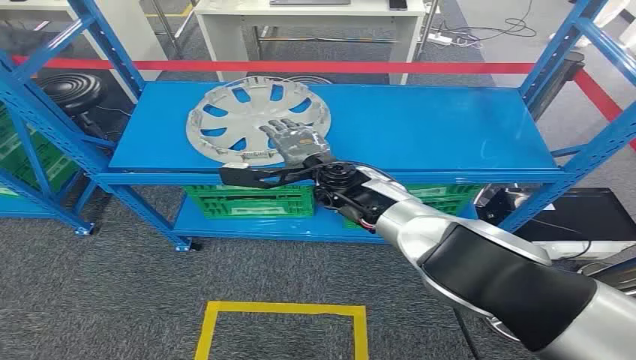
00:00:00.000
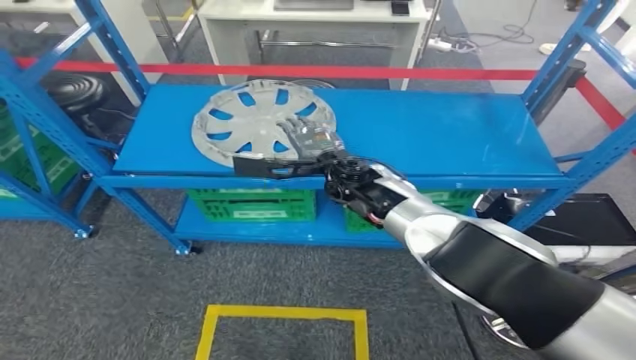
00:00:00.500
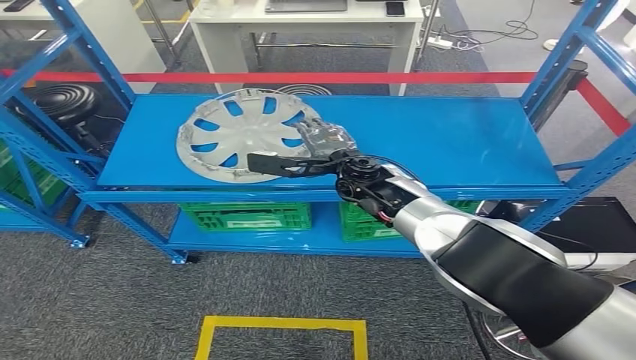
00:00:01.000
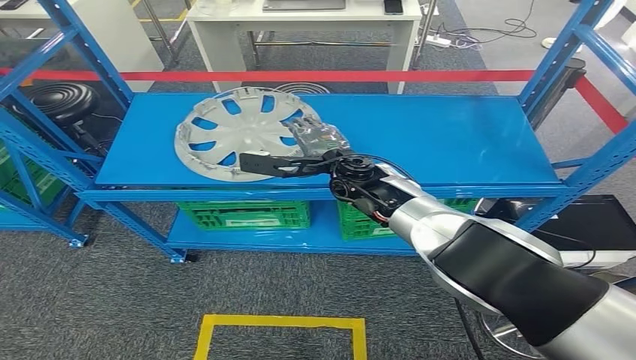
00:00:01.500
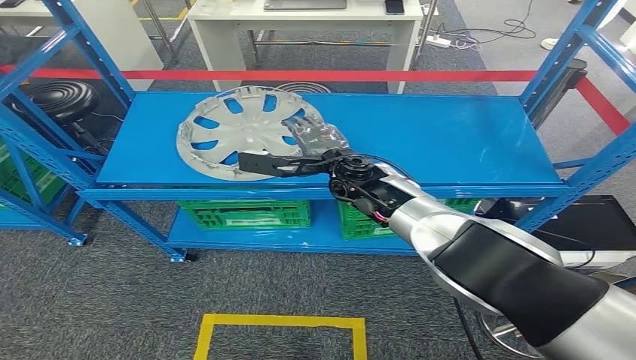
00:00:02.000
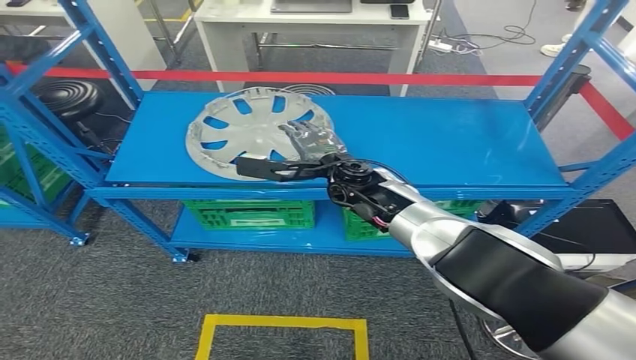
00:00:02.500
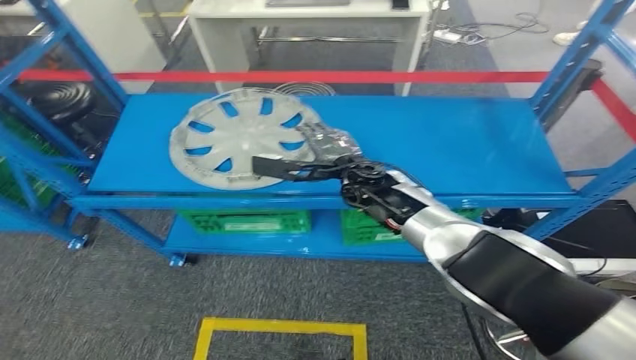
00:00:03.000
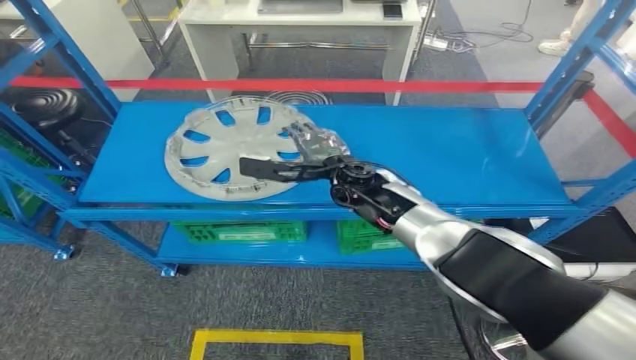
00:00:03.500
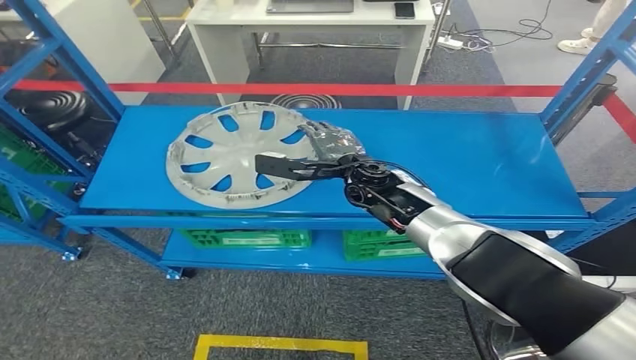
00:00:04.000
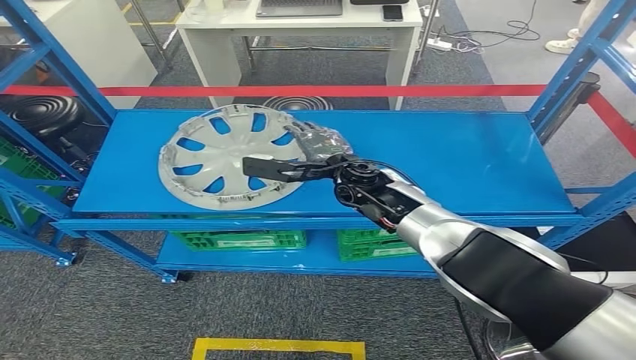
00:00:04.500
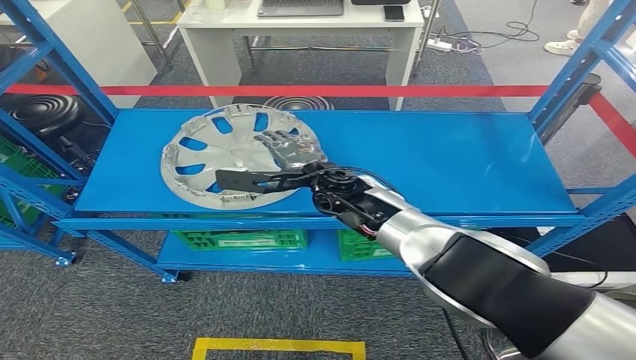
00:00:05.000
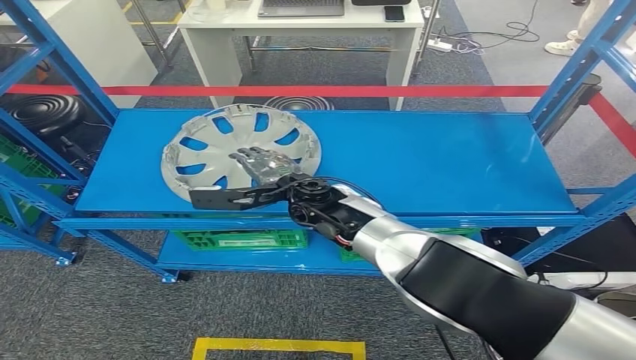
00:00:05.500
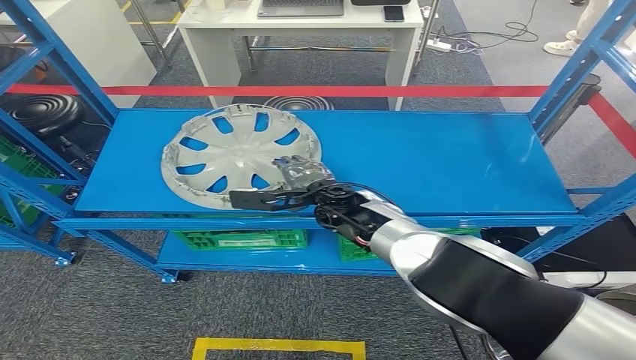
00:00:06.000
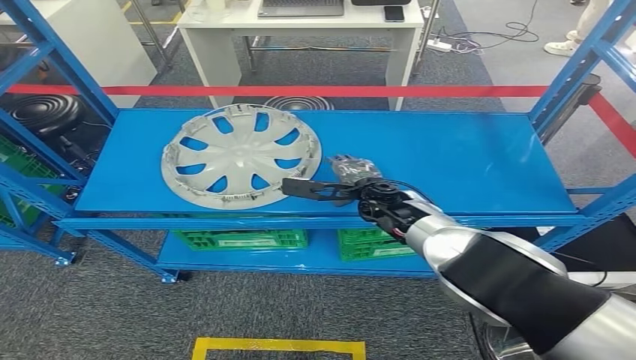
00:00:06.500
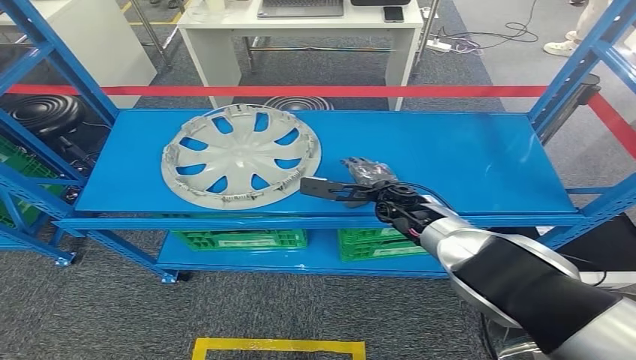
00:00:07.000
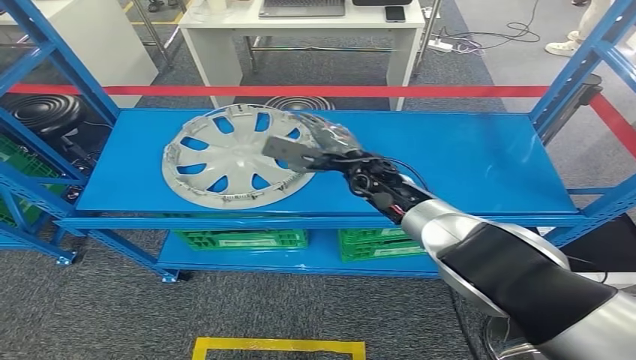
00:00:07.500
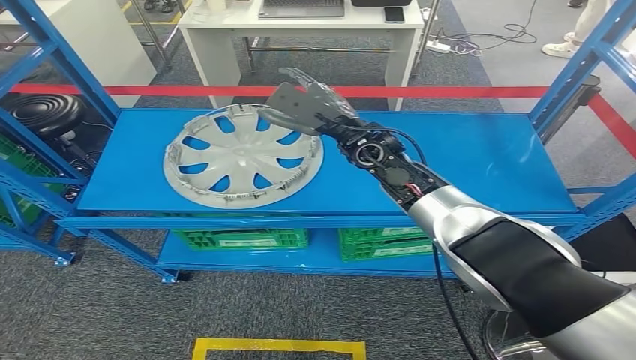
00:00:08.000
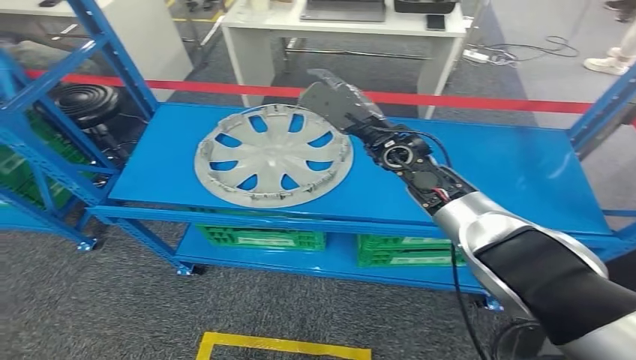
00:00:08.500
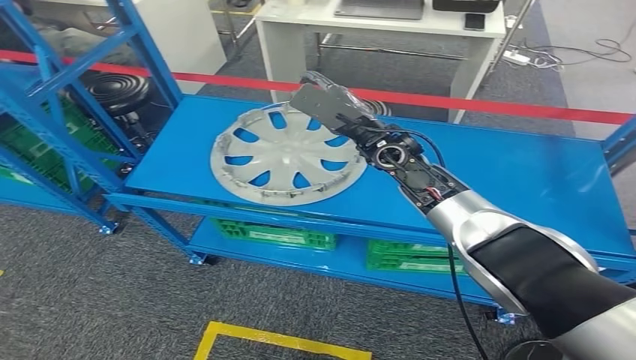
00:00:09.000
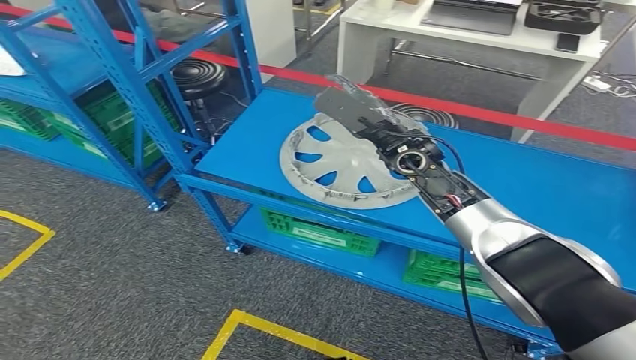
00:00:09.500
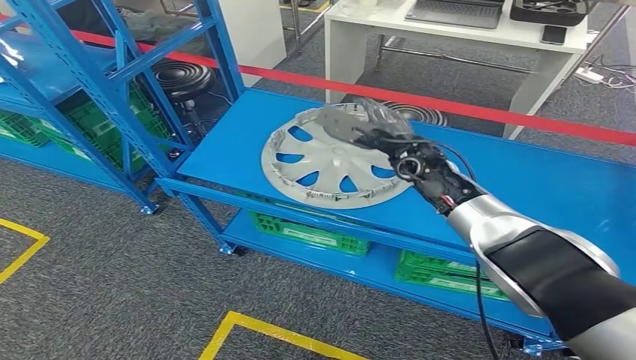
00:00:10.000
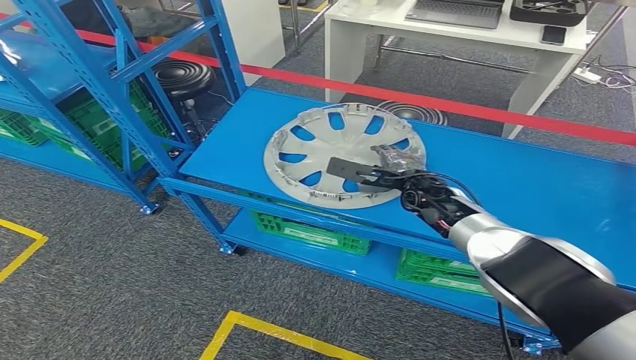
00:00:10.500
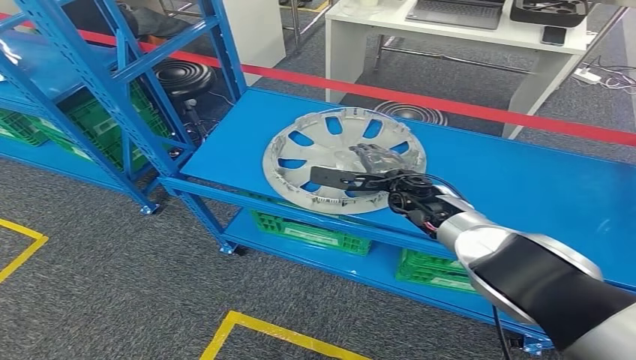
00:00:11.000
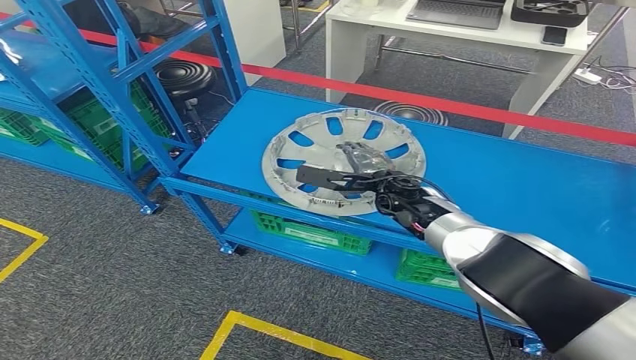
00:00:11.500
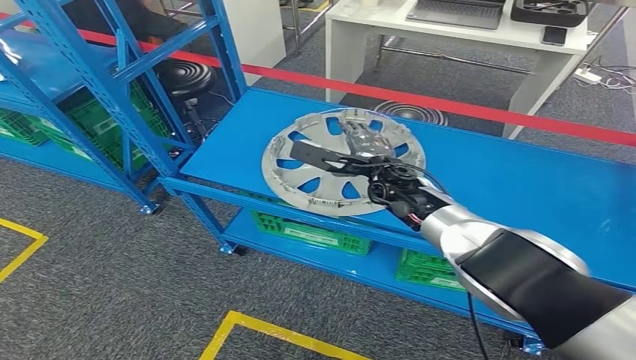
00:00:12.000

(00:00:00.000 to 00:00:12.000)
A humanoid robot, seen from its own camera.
00:00:06.000 - 00:00:08.000: The right hand travels upward and to the right by about 10 cm.
00:00:10.000 - 00:00:12.000: The right hand shifts by about 5 cm.

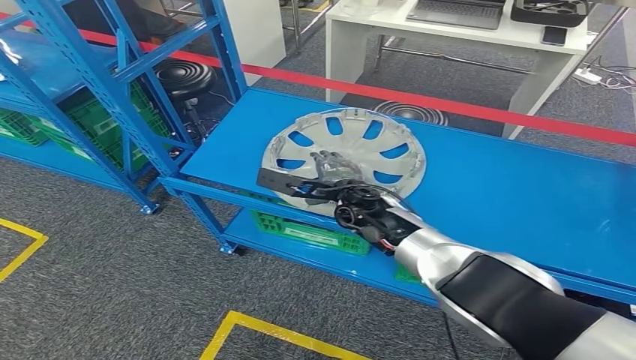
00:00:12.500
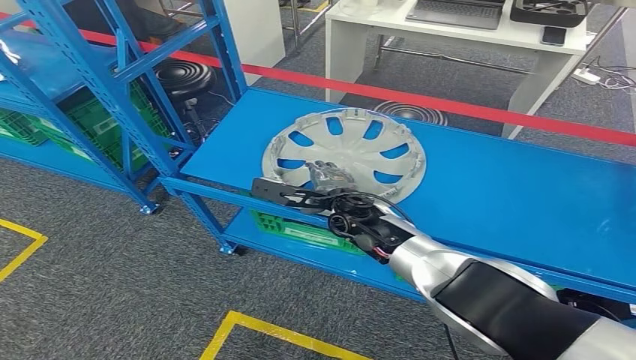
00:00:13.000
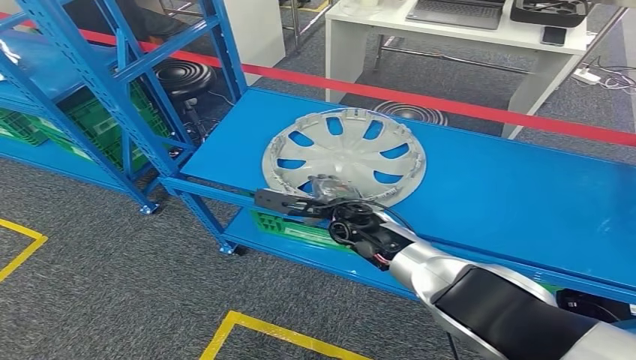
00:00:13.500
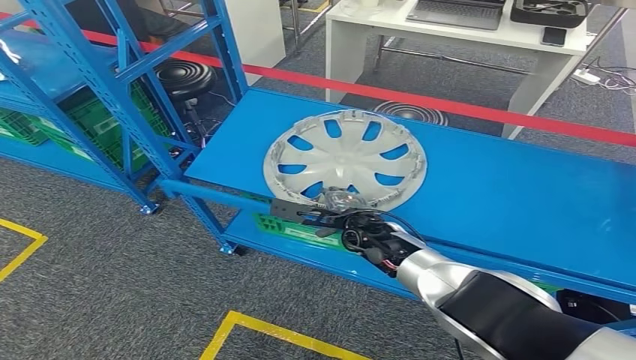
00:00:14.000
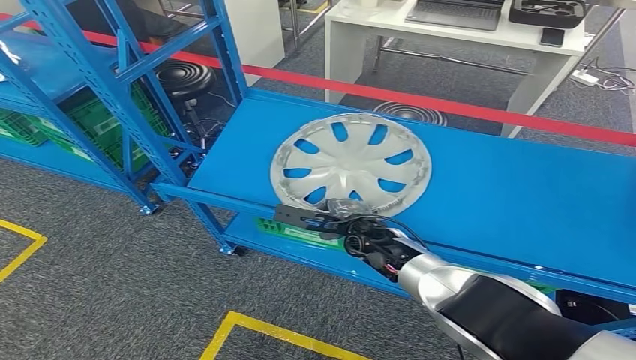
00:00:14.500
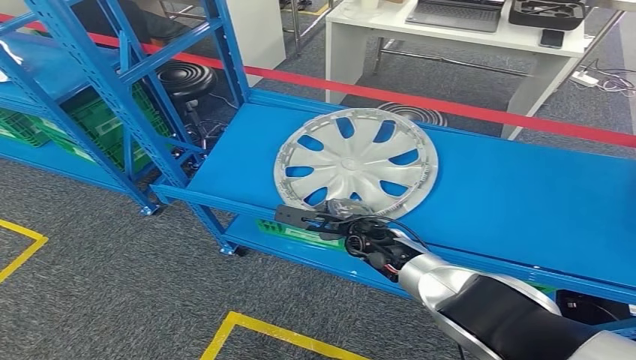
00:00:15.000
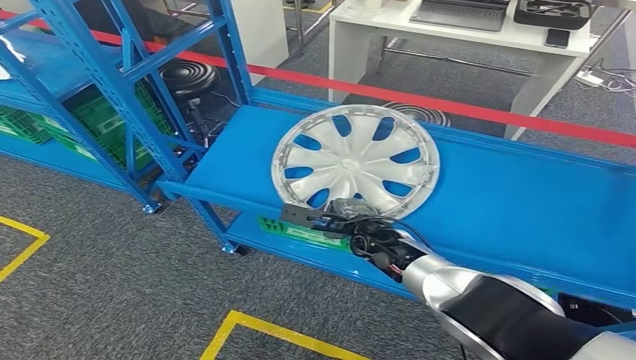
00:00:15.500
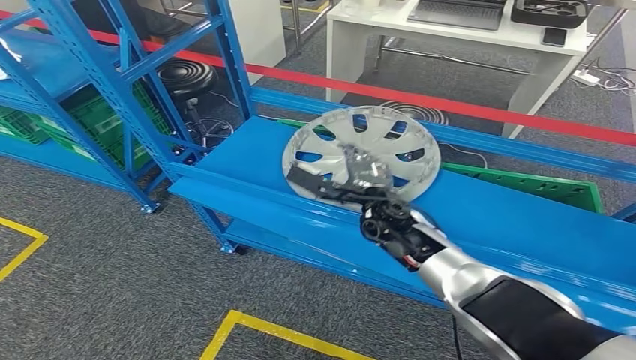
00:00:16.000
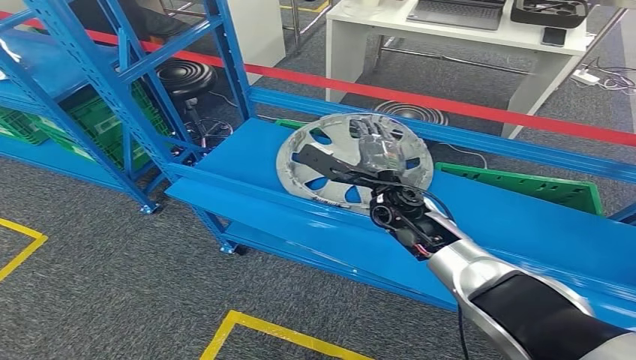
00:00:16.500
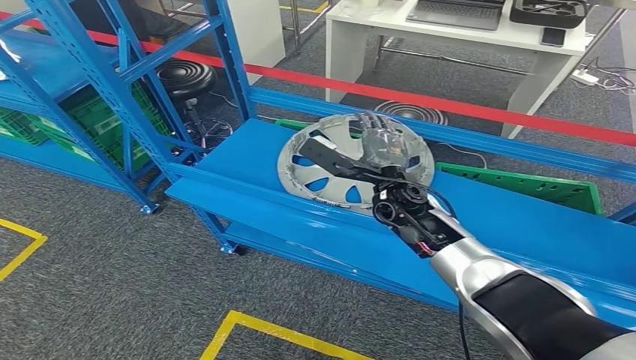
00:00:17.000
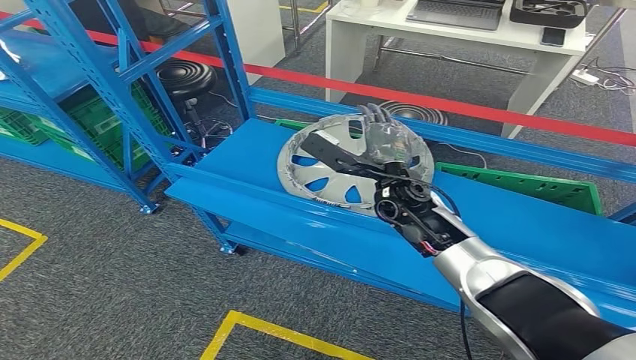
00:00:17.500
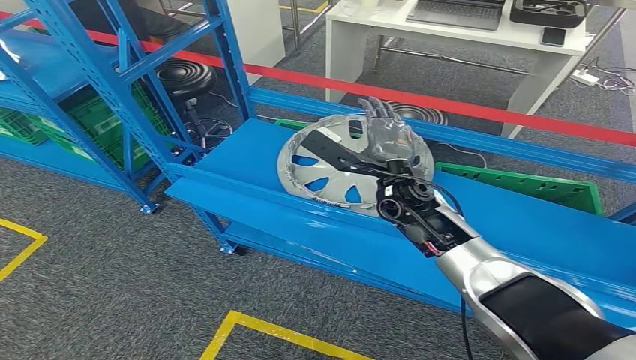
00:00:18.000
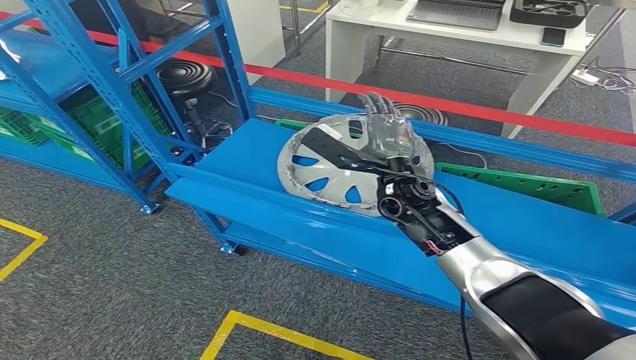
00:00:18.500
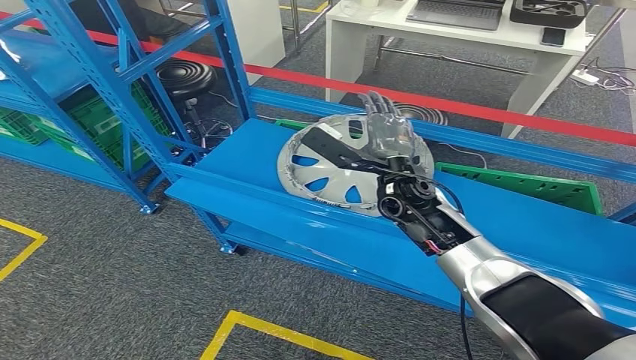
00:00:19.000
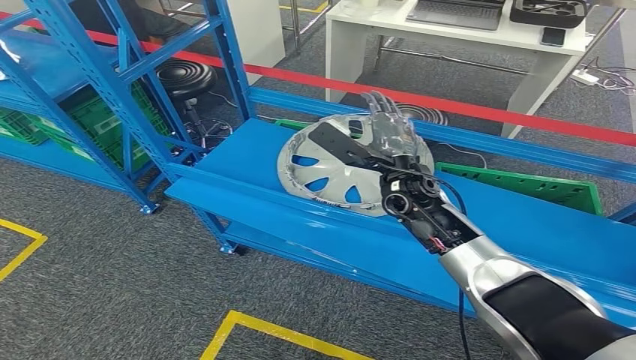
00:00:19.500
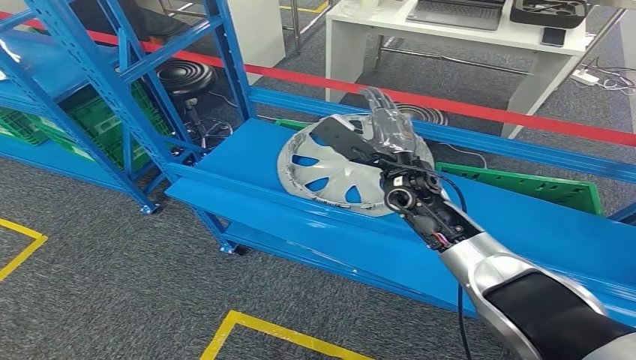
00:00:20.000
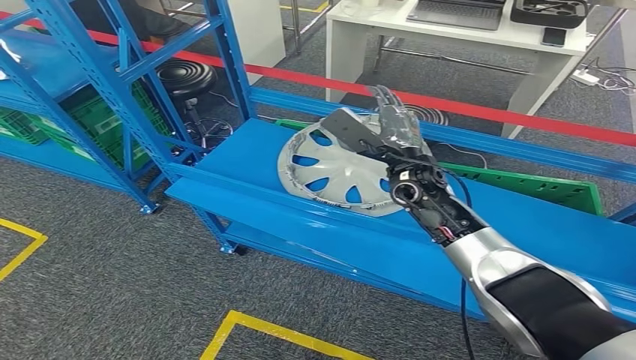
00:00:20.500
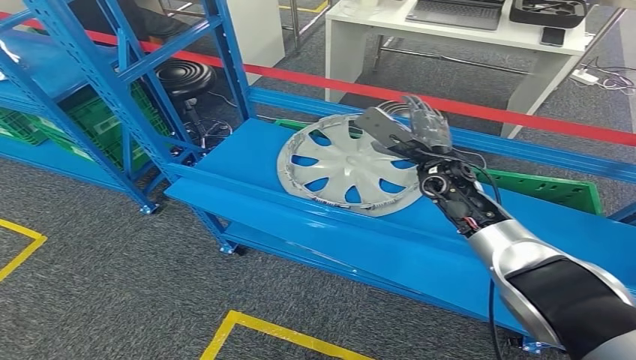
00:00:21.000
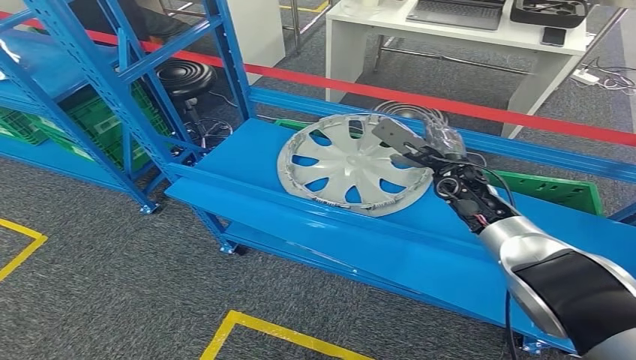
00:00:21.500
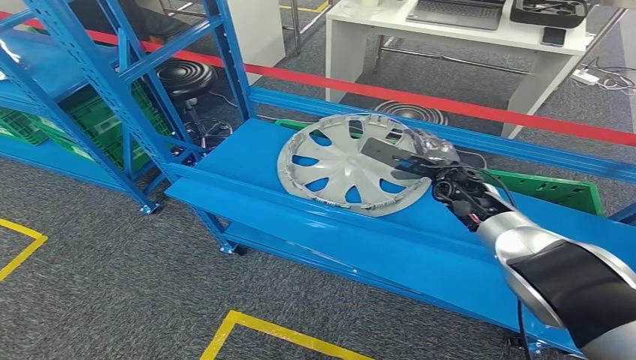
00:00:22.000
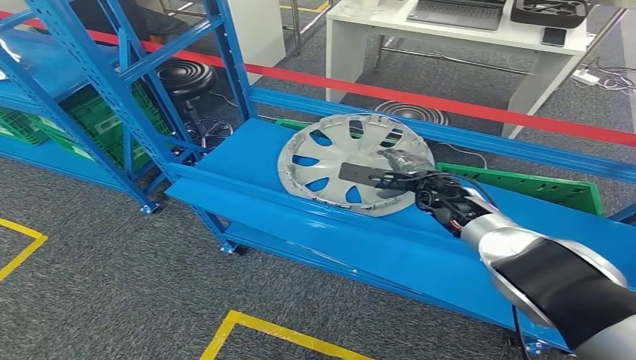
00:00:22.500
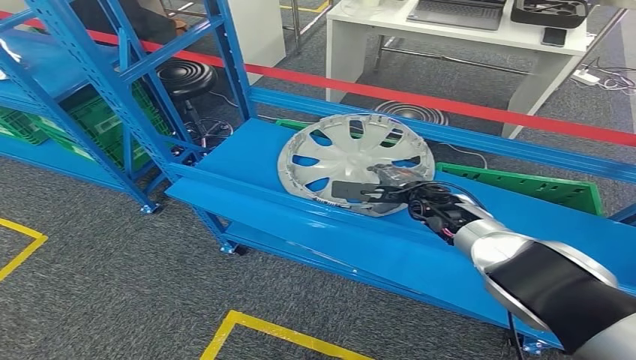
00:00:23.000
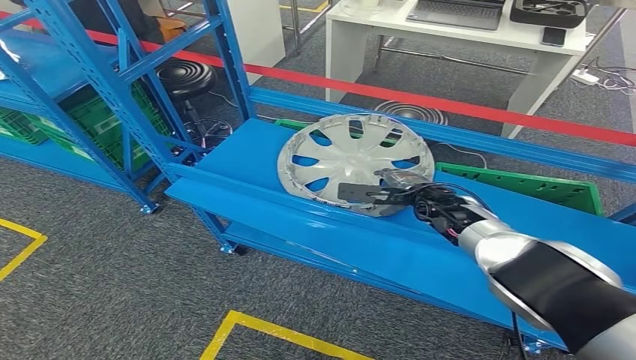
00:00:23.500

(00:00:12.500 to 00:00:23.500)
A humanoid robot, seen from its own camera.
00:00:12.500 - 00:00:14.500: The right hand travels downward by about 5 cm.
00:00:14.500 - 00:00:16.000: The right hand changes place by about 5 cm.
00:00:16.000 - 00:00:18.000: The right hand goes roughly 5 cm upward.
00:00:18.000 - 00:00:20.000: There are only small adjustments of the hands.
00:00:20.000 - 00:00:21.500: The right hand goes roughly 10 cm to the right.
00:00:21.500 - 00:00:23.500: The right hand shifts approximately 5 cm downward.
